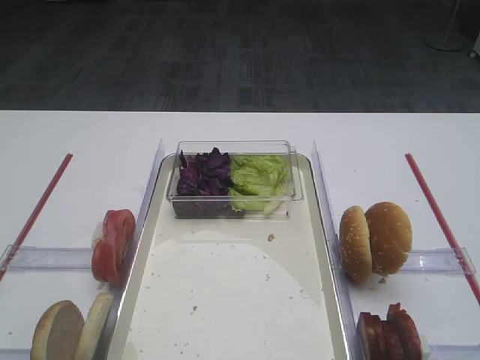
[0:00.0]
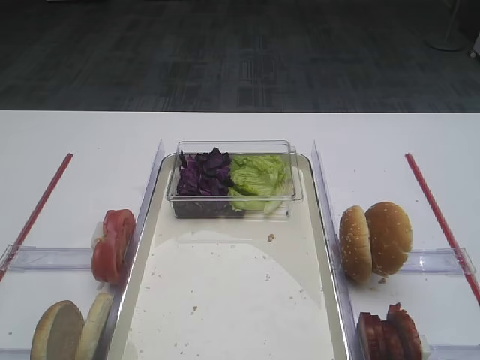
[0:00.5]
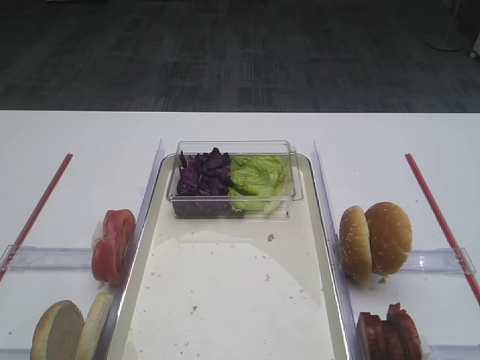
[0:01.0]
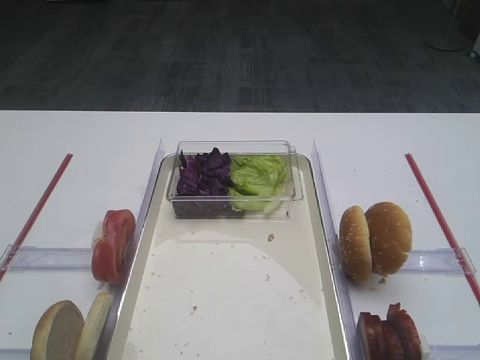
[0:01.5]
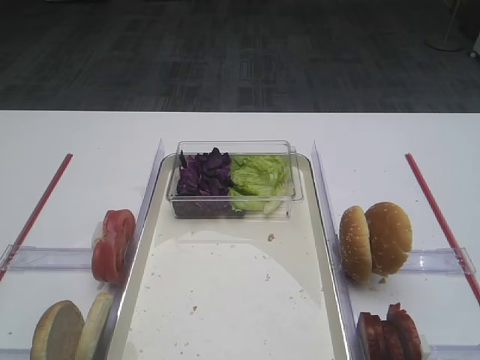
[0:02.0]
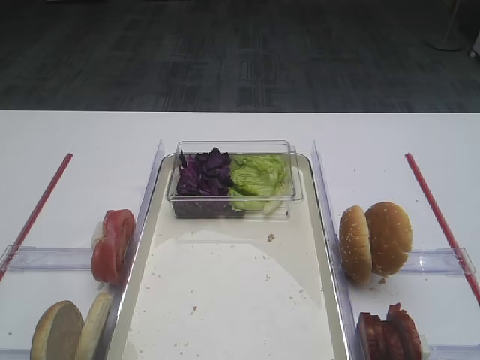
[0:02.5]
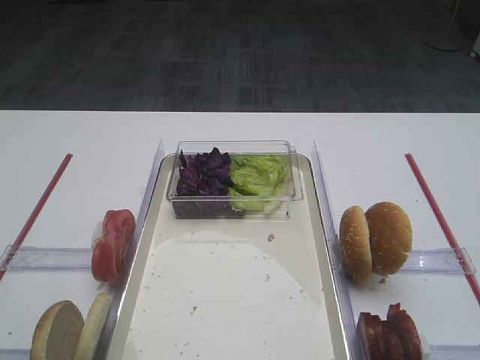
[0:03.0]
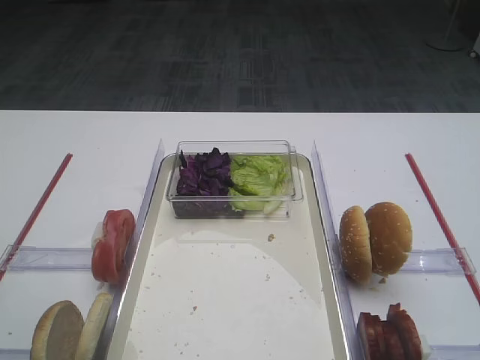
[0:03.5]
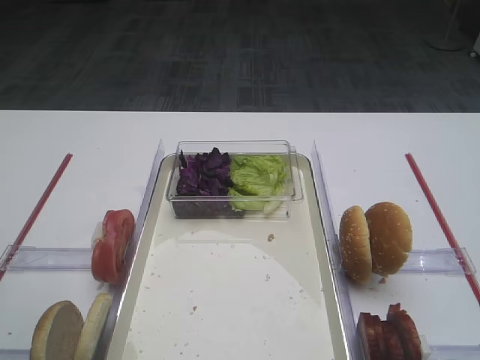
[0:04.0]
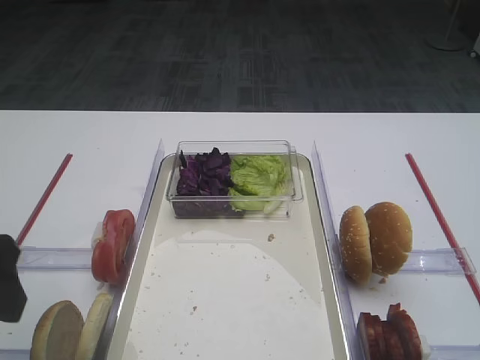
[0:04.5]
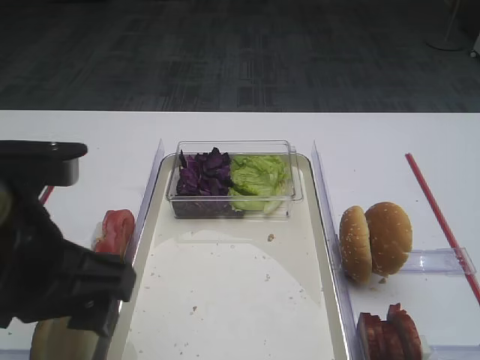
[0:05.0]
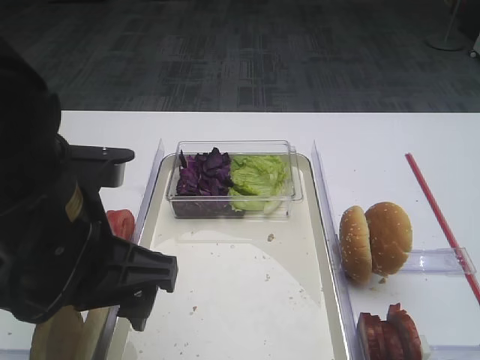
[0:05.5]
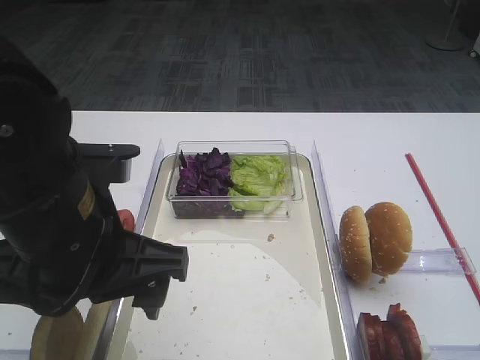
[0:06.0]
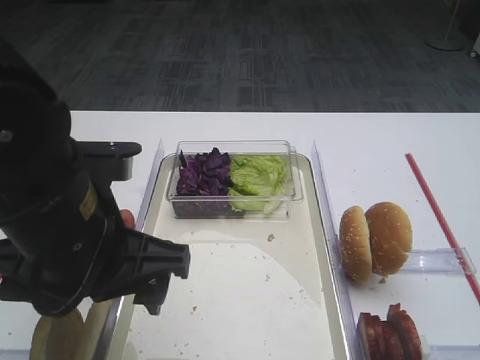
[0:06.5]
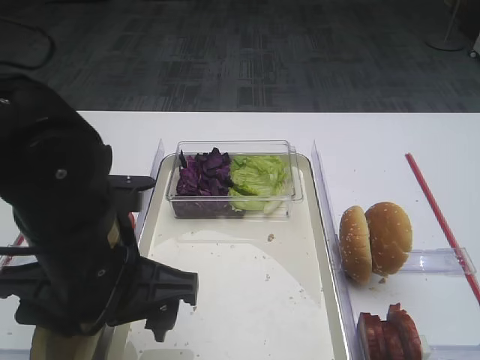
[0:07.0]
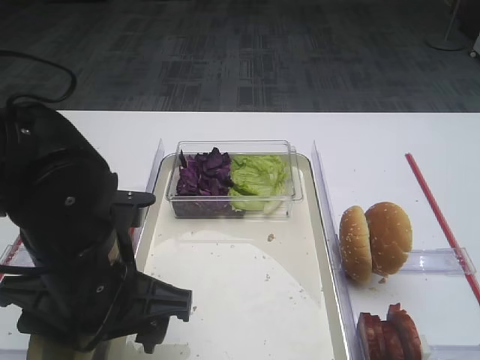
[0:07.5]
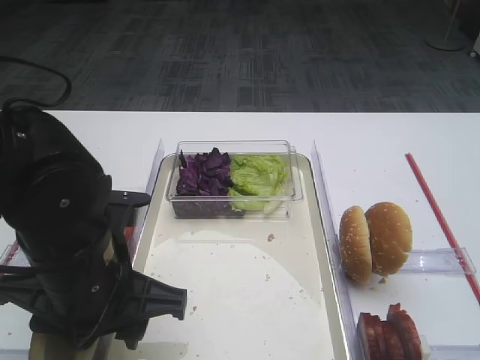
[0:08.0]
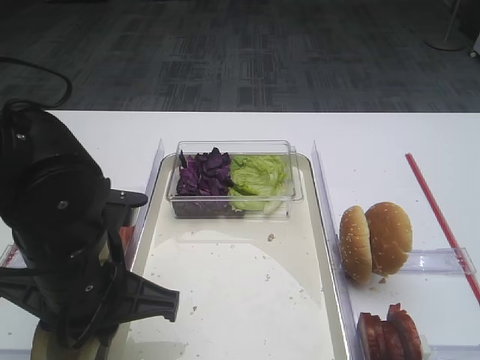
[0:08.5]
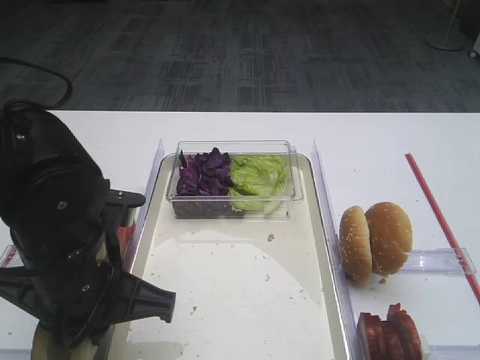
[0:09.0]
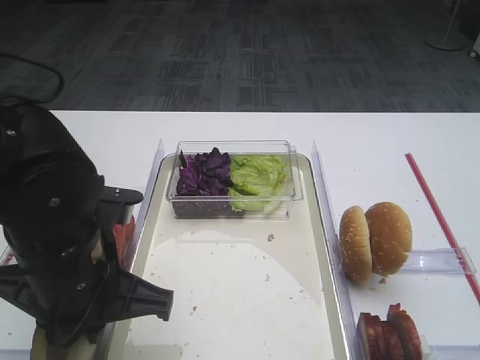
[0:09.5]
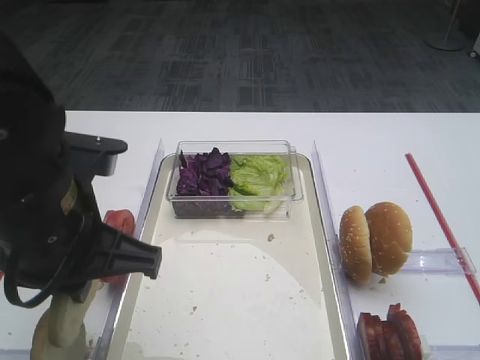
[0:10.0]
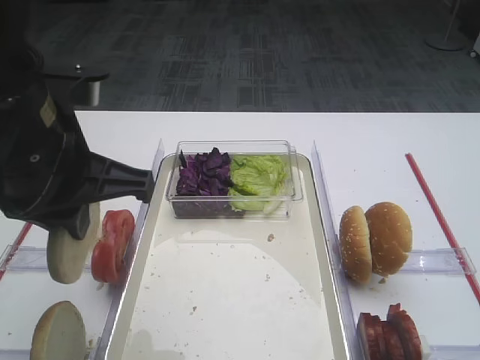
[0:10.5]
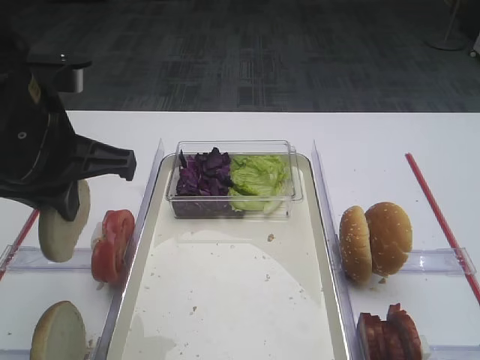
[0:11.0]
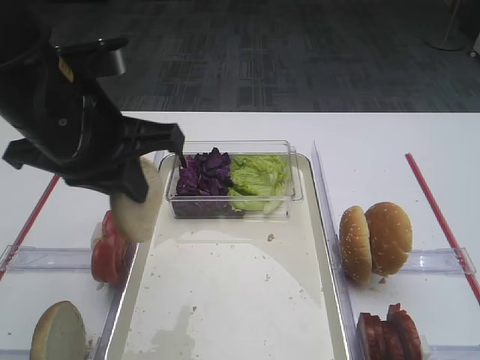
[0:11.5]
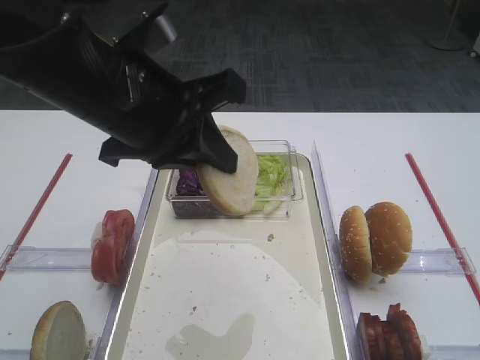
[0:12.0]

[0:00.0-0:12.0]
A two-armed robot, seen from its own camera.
Step, 0:00.0 to 0:10.5: Pick up the bread slice with the left gripper.
0:04.0 to 0:06.0: The left gripper shifts about 15 cm to the right.
0:06.0 to 0:08.0: The left gripper shifts some 5 cm downward, and closes up.
0:08.0 to 0:10.0: The left gripper goes approximately 5 cm upward, and closes.
0:10.0 to 0:12.0: The left gripper travels forward and upward by about 10 cm.

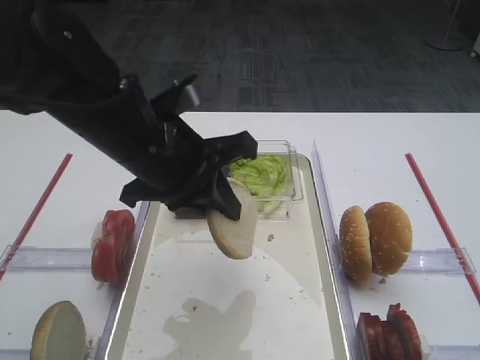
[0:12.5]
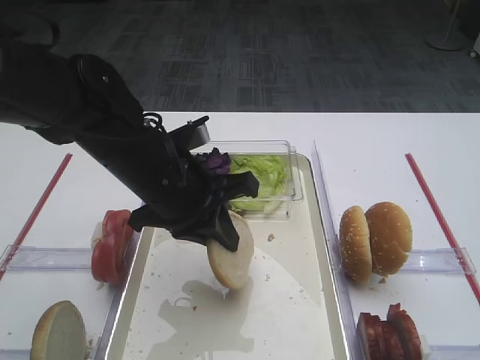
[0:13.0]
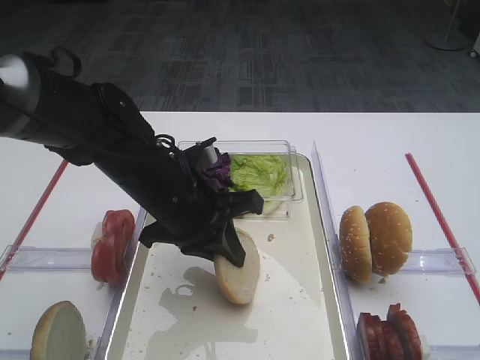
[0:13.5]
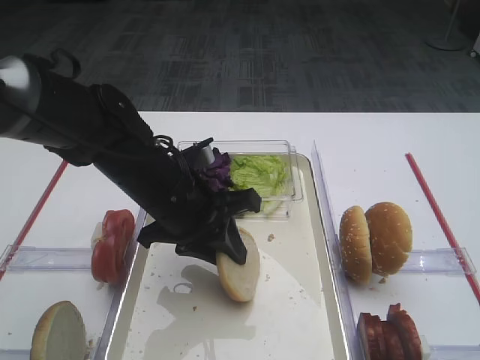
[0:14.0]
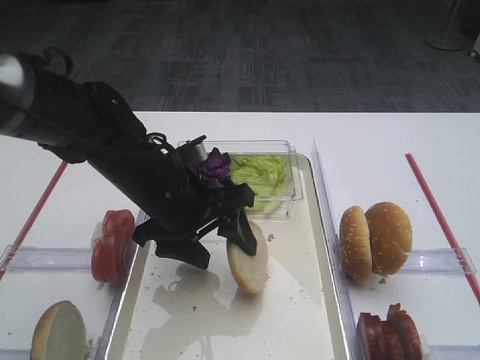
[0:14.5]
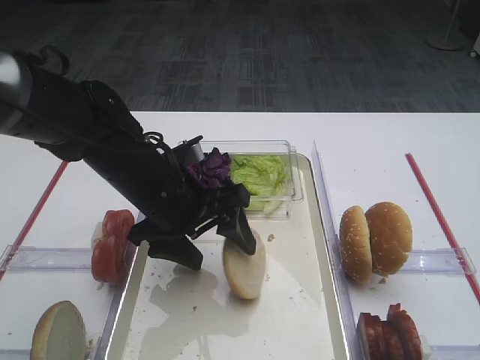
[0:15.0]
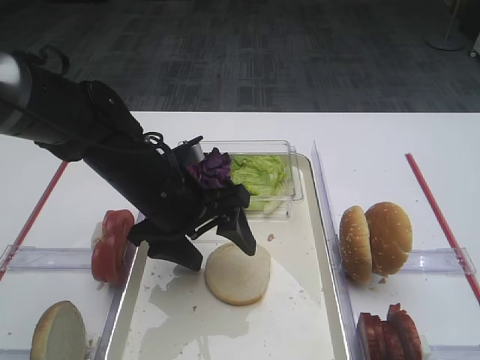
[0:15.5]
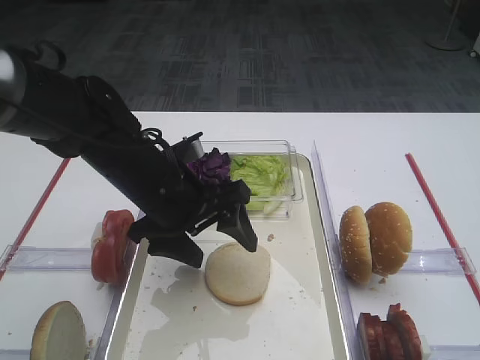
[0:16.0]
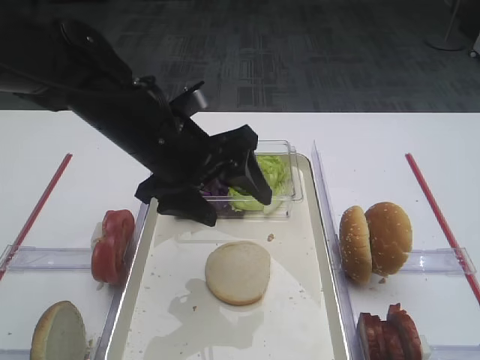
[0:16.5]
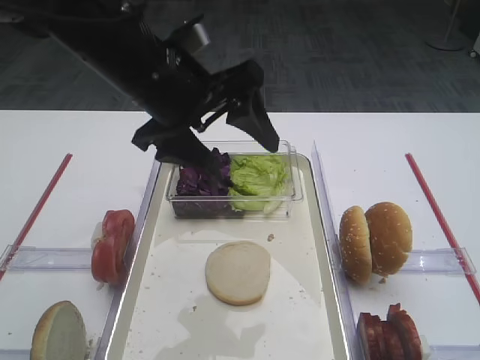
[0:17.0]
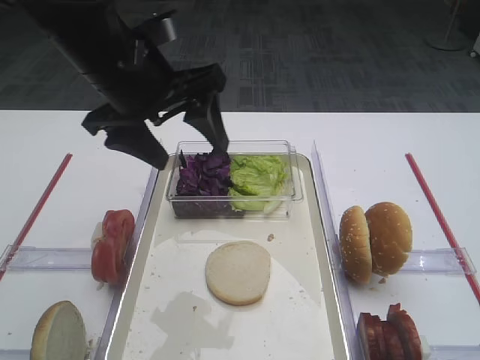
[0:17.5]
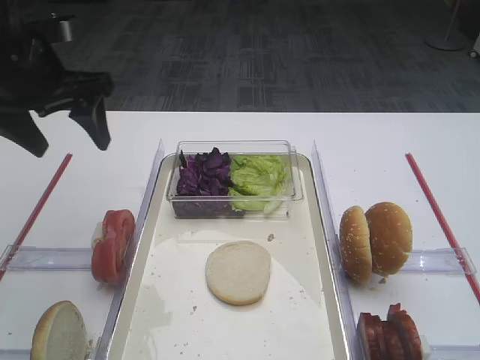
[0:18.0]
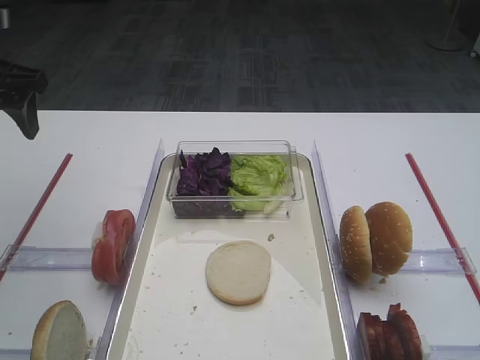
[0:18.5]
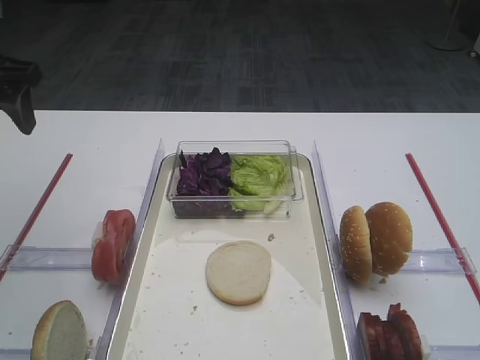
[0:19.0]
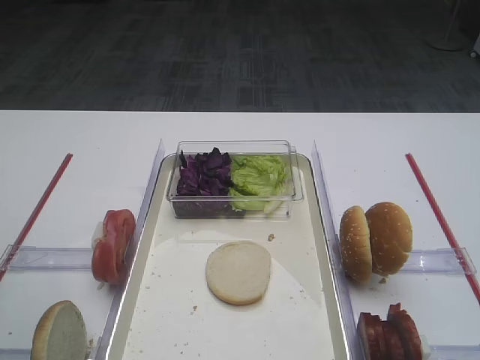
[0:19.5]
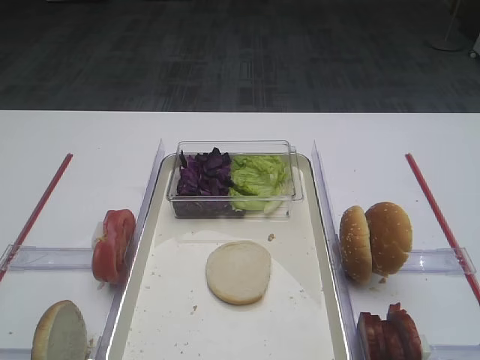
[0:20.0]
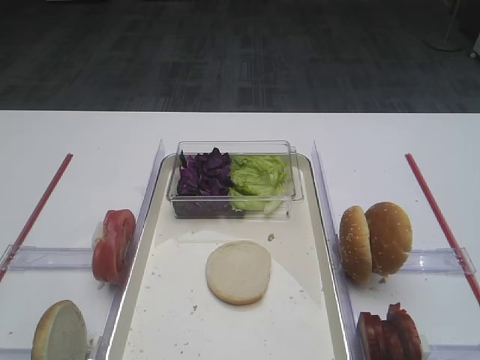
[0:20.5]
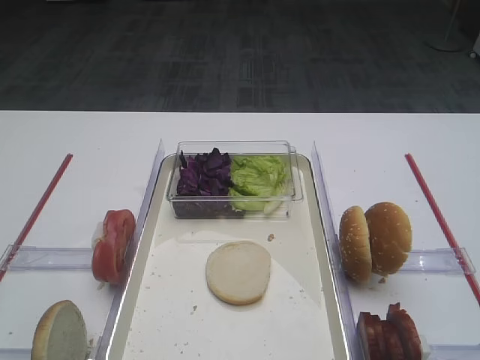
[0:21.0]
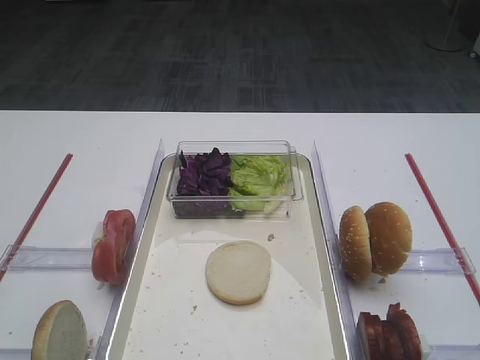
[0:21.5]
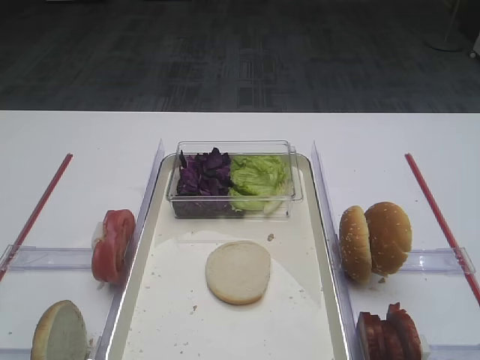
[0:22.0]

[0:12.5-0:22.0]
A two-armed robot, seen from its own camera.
Step, 0:12.5 to 0:16.0: Place the bread slice on the tray with the left gripper.
0:12.5 to 0:14.5: The left gripper heads downward, covering about 10 cm, and opens its fingers.
0:14.5 to 0:16.5: The left gripper heads upward, covering approximately 5 cm.
0:16.5 to 0:18.0: The left gripper is displaced to the left and upward by about 15 cm.
0:18.0 to 0:20.0: The left gripper is displaced backward by approximately 25 cm.
